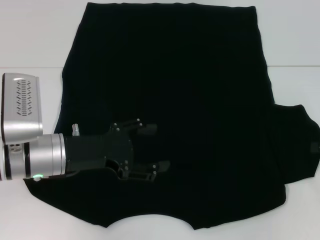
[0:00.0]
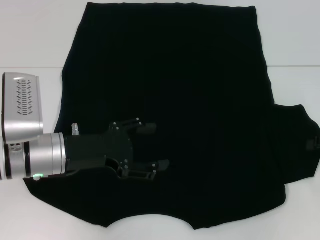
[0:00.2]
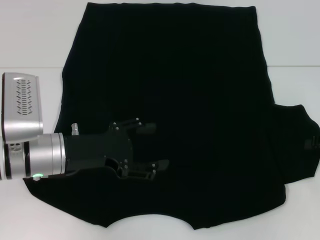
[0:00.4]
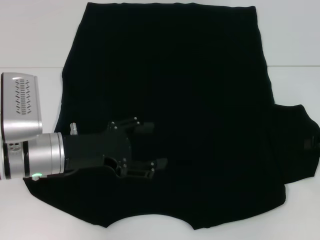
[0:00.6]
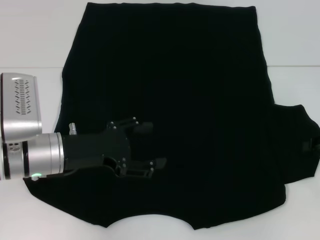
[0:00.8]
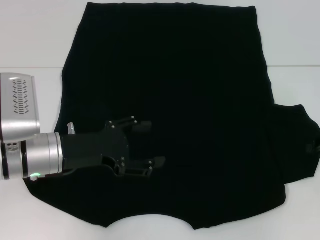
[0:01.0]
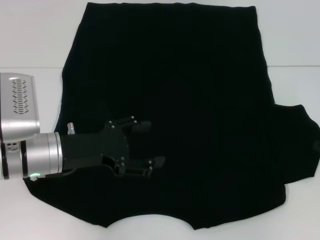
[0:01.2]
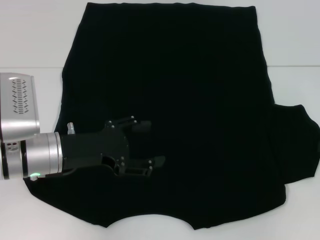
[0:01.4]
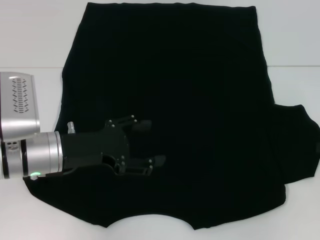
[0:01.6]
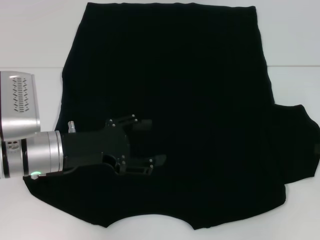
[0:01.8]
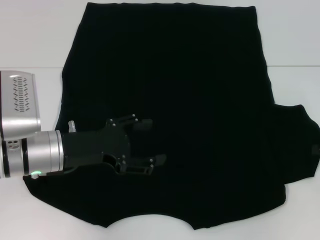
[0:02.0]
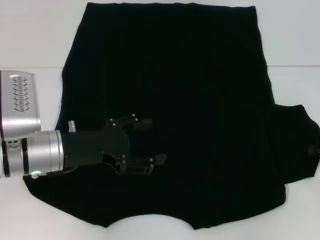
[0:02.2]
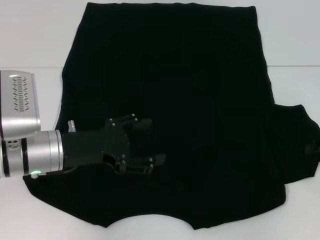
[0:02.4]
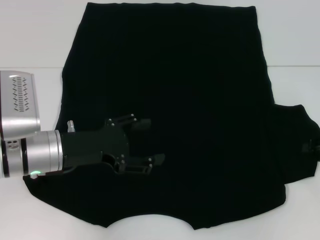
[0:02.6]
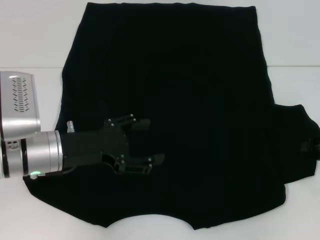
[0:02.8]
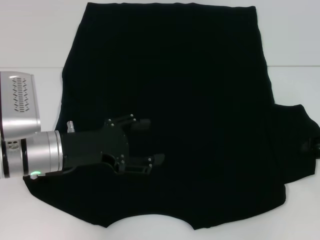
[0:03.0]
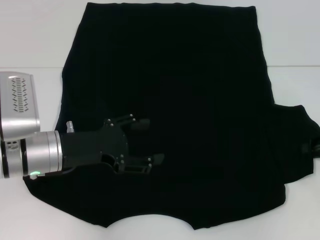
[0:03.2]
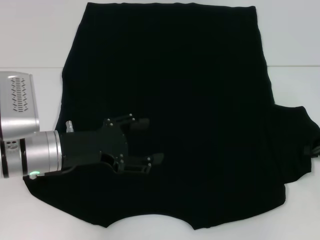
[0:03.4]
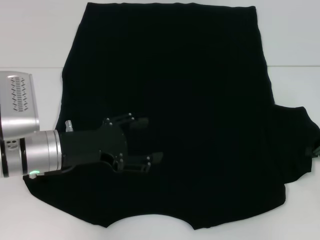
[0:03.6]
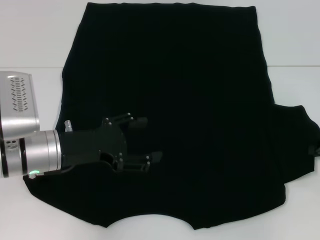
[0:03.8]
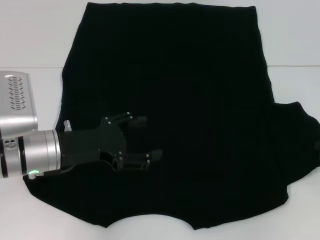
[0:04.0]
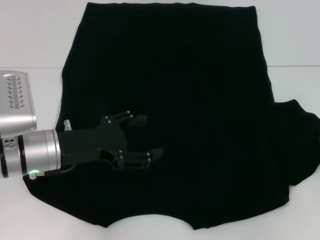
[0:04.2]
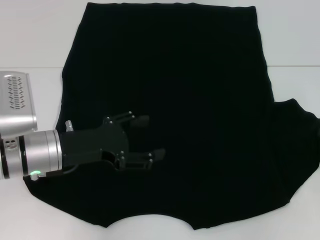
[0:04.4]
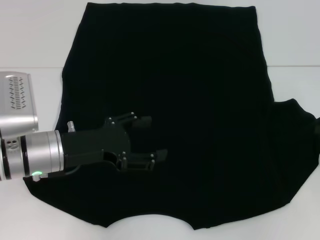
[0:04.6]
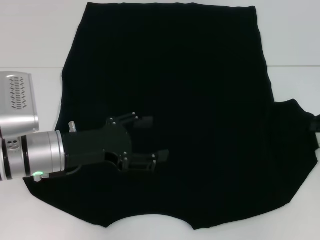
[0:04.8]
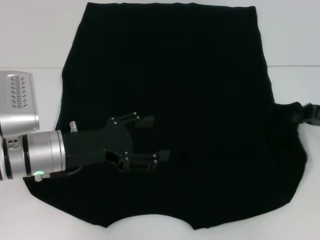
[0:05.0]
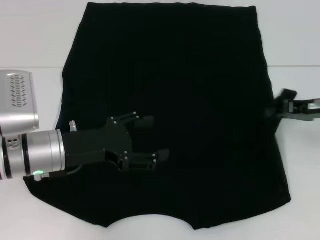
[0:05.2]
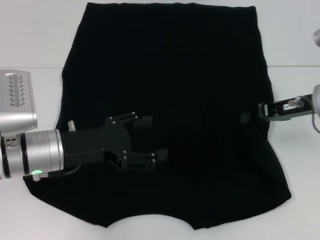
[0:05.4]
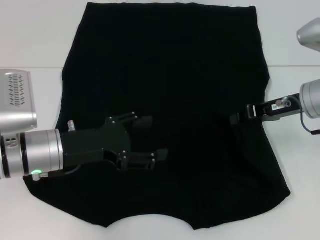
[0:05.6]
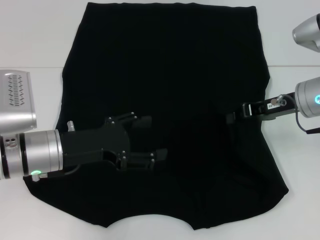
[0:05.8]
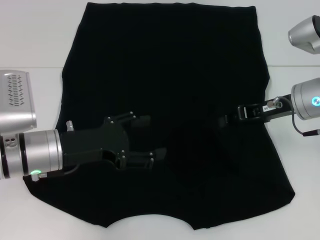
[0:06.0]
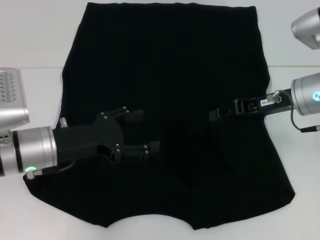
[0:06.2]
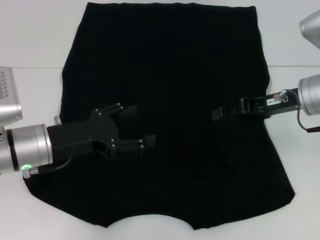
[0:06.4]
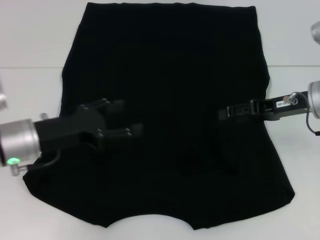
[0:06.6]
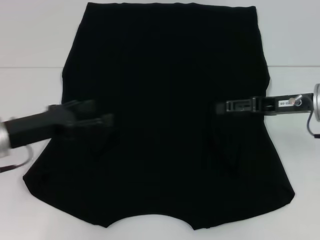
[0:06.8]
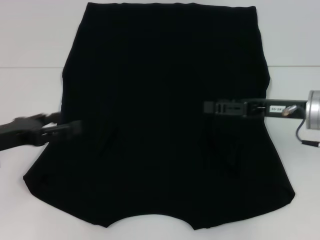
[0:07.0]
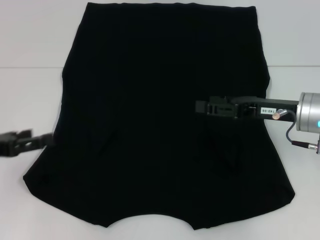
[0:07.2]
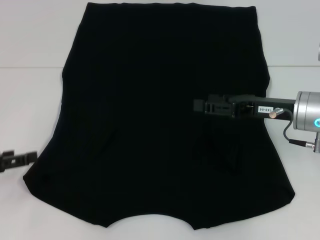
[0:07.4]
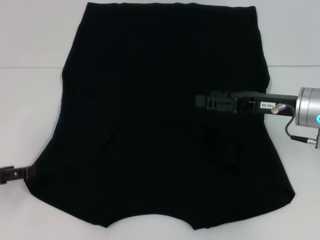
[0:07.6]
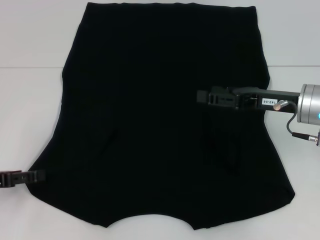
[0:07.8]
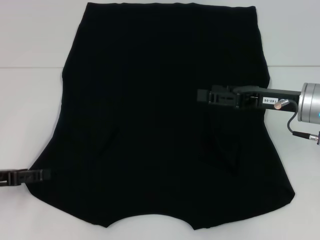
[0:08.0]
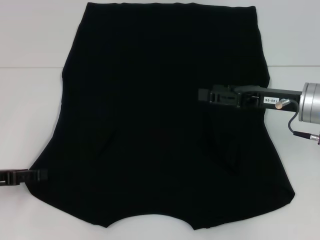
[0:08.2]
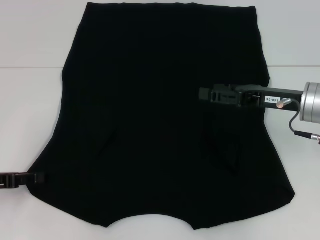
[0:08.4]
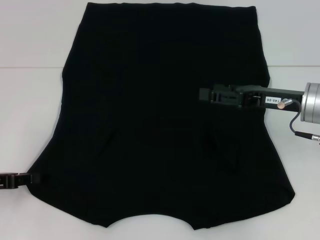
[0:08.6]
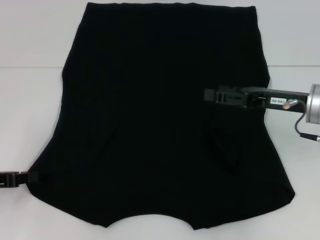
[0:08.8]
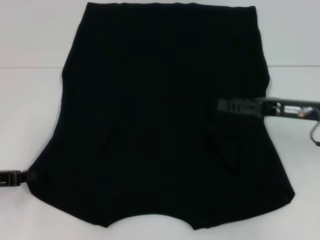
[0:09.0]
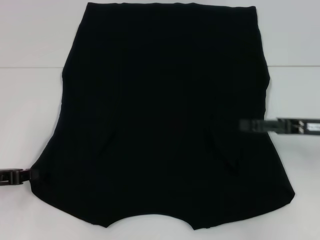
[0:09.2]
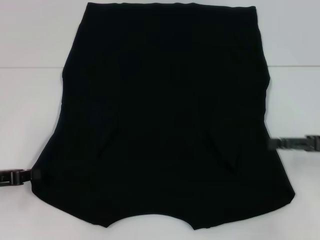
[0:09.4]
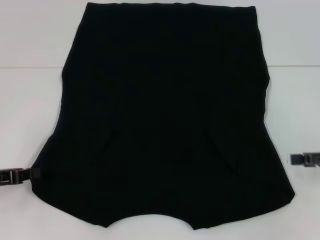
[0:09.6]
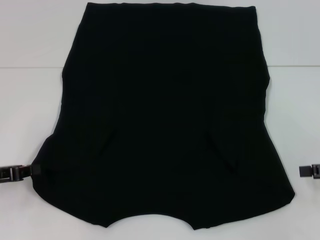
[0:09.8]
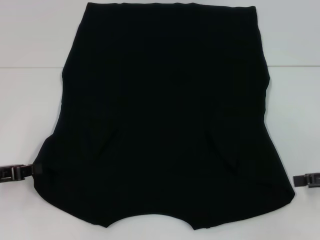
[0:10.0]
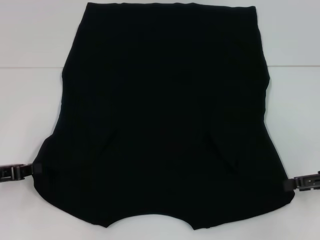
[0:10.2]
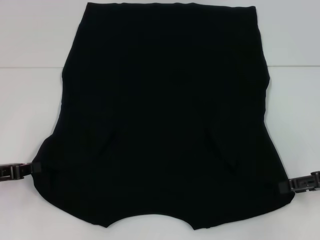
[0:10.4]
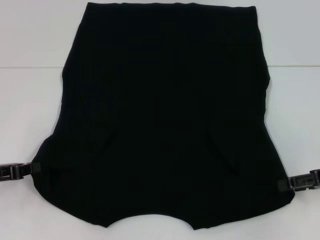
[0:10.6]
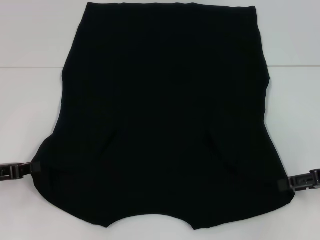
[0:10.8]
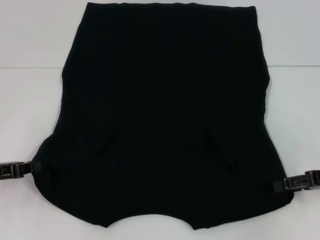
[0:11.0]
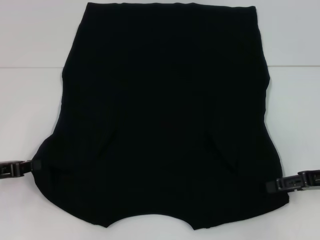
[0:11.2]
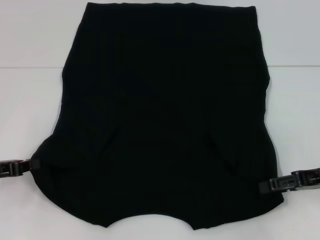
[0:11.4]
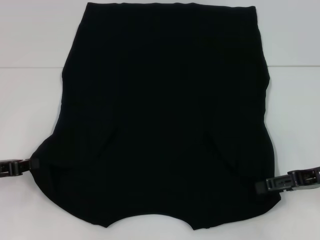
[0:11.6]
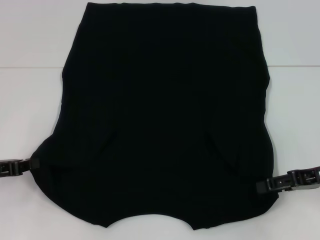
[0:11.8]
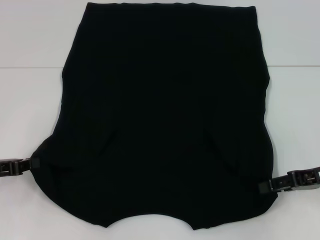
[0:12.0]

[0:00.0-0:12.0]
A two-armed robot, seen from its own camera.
Step, 0:00.0 to 0:06.6: Fold the bottom right sleeve with your right hand.
0:03.0 to 0:04.4: The right gripper closes.
0:04.4 to 0:06.0: The right gripper is displaced to the left by roughly 15 cm.
0:06.0 to 0:07.6: The left gripper moves to the left, approximately 15 cm; the right gripper opens up.
0:07.6 to 0:09.0: The left gripper closes.
0:09.0 to 0:10.4: The right gripper heads to the right, covering roughly 10 cm.
0:10.4 to 0:12.0: There are only small adjustments of the grippers.

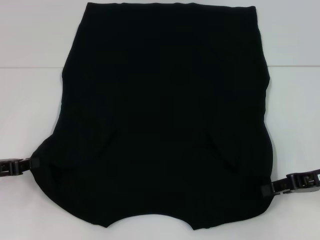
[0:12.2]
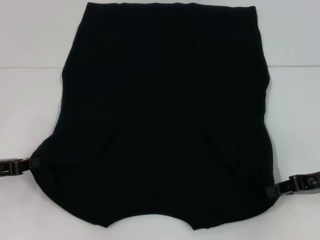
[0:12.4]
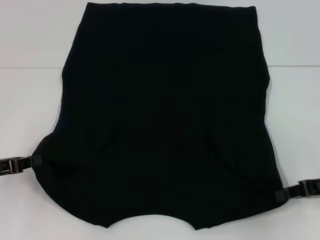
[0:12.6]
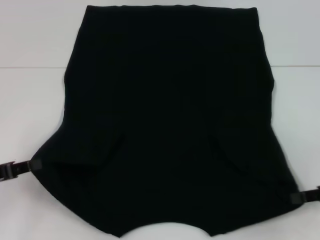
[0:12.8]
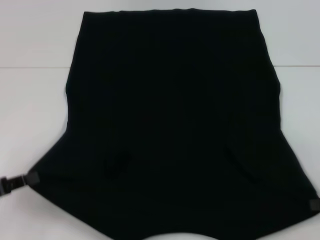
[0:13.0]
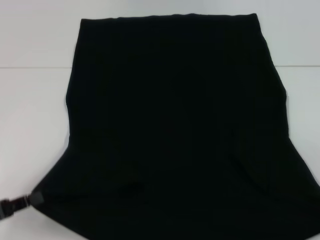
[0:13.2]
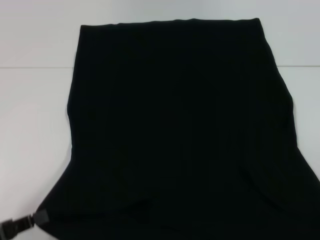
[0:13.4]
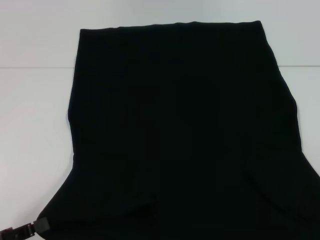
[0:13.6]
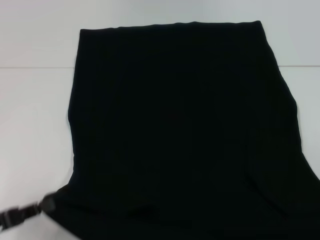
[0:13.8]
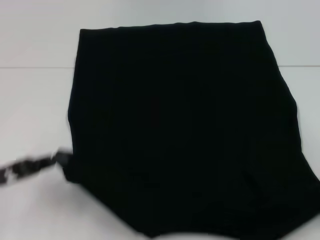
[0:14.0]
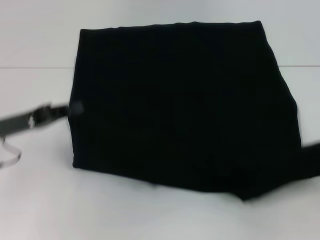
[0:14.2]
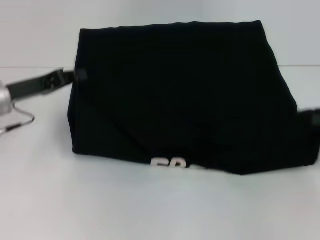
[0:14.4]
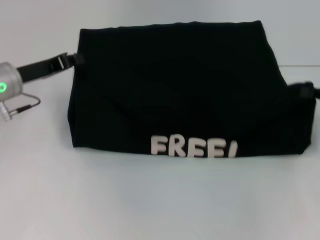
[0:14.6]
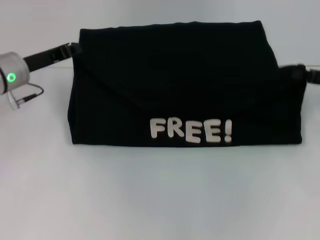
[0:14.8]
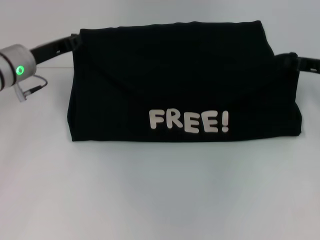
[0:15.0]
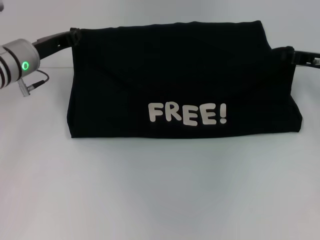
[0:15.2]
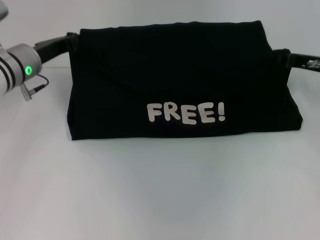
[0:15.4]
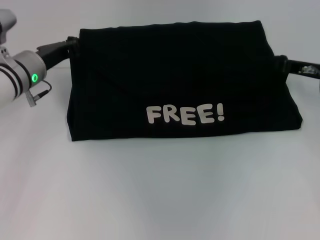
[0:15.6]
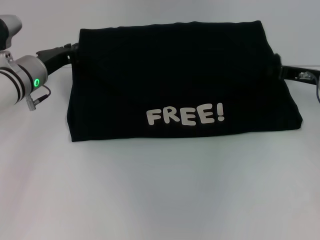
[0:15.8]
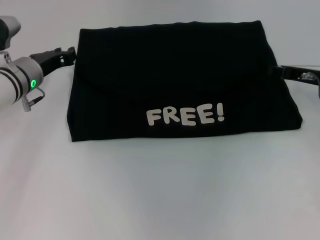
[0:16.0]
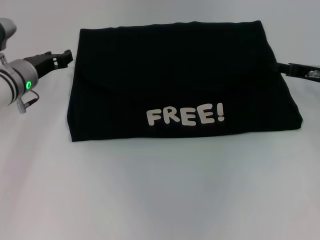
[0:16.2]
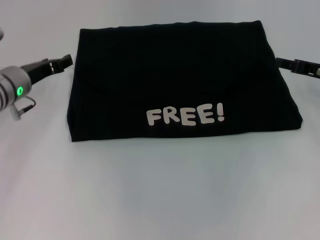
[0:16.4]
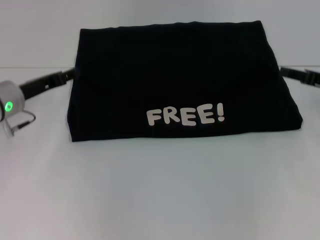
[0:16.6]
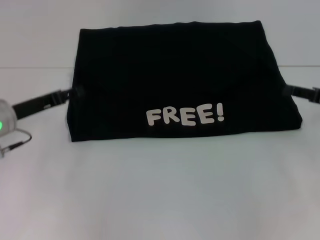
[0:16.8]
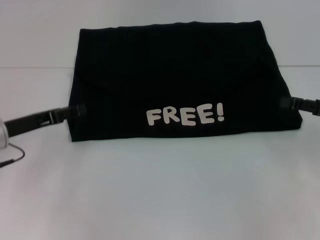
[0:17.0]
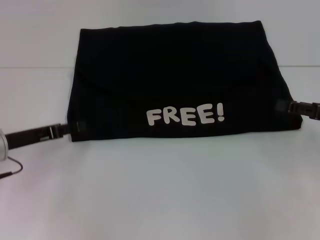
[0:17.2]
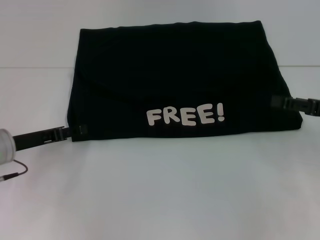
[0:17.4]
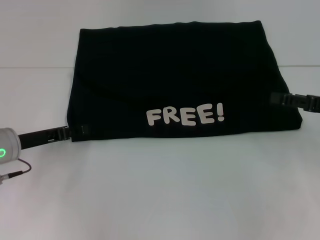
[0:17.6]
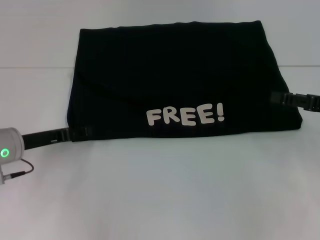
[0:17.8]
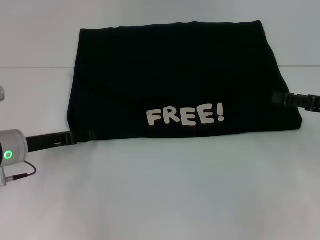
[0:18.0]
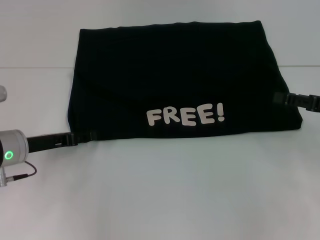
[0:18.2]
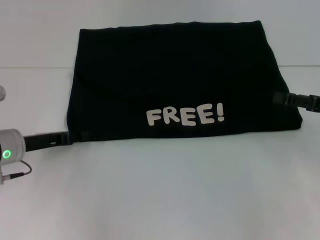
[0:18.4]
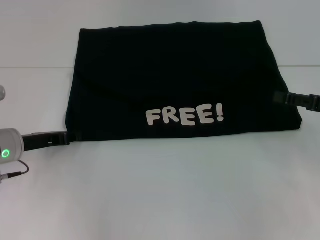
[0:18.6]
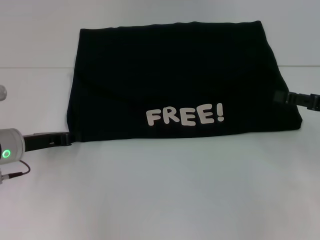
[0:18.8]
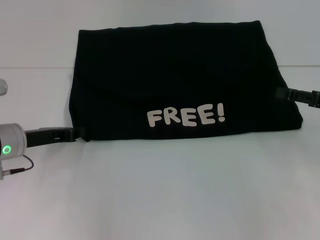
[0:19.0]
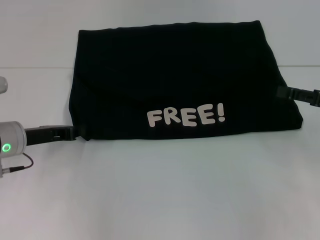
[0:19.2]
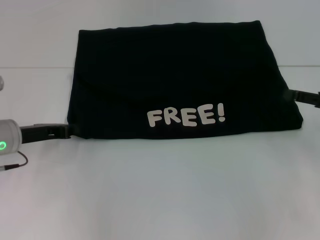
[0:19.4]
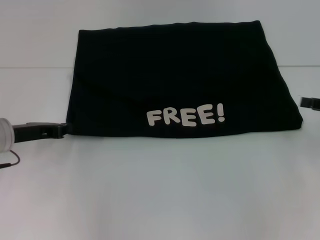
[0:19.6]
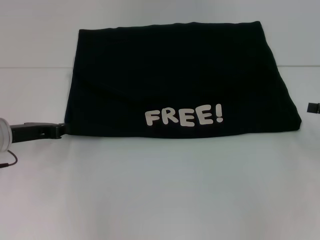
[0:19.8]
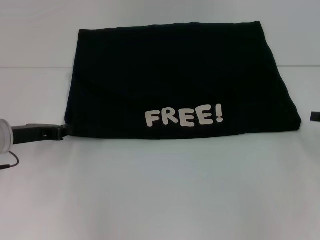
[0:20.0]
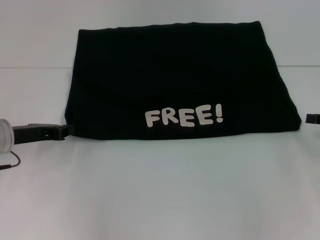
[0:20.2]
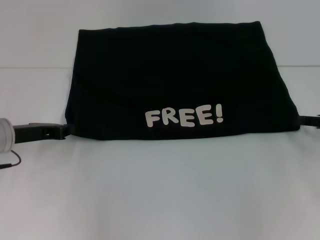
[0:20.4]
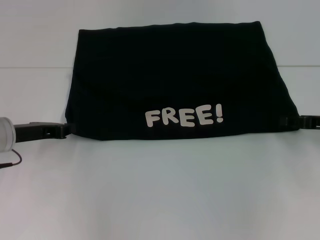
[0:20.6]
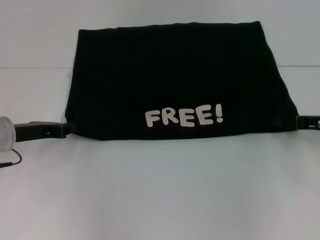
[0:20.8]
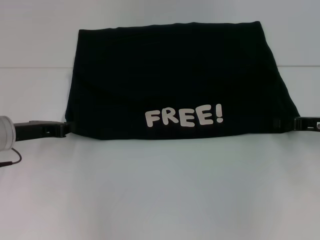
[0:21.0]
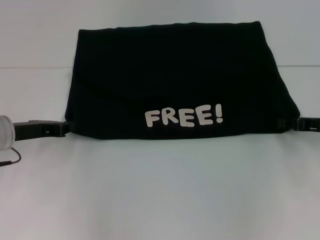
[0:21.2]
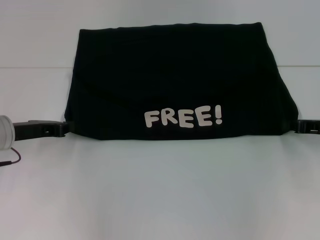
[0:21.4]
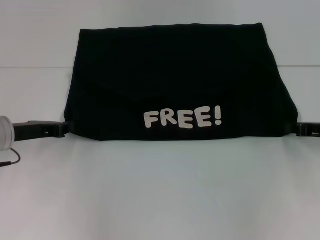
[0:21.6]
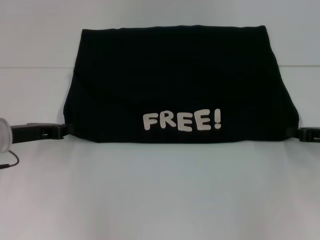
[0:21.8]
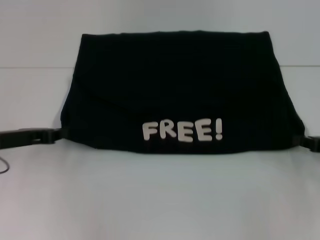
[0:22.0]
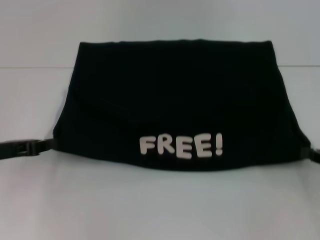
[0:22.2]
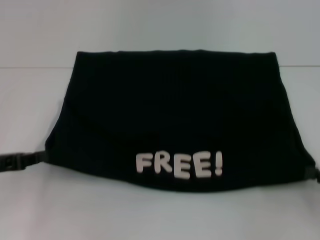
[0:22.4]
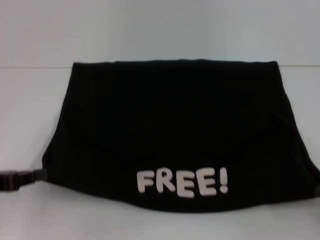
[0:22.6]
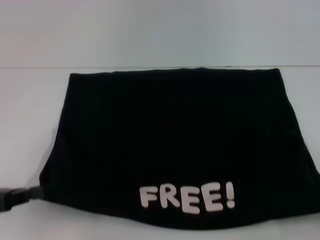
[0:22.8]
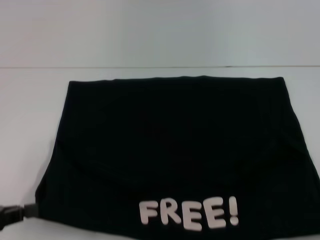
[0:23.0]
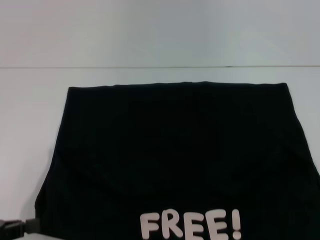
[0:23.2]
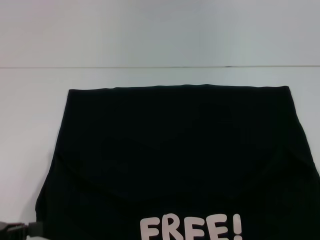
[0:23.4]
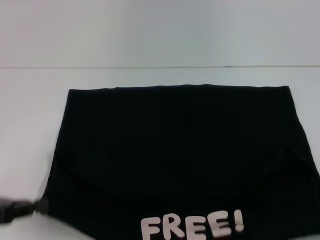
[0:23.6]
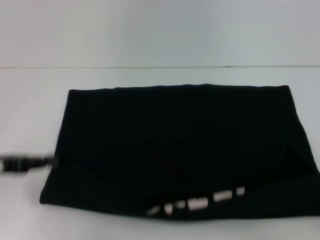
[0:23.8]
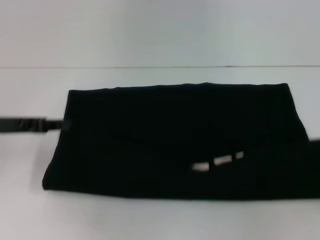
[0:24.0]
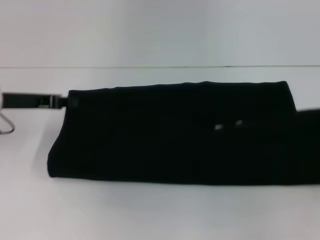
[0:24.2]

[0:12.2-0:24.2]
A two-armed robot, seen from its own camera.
Step, 0:13.0 to 0:16.6: Fold the clothes with your left hand.
Step, 0:13.0 to 0:16.6: Fold the clothes with your right hand.
Step, 0:16.8 to 0:23.0: Pull the clothes with your left hand.
Step, 0:16.8 to 0:23.0: Pull the clothes with your right hand.
0:12.2 to 0:13.8: The left gripper heads backward, covering approximately 10 cm. The right gripper heads to the right and backward, covering approximately 15 cm, and closes up.
0:13.8 to 0:15.2: The right gripper goes some 25 cm forward and to the left. The left gripper shifts approximately 25 cm forward.
0:15.2 to 0:16.6: The right gripper moves about 5 cm, and opens up. Meanwhile the left gripper ends up some 5 cm from where it was, and opens its fingers.
0:16.6 to 0:18.2: The left gripper shifts about 5 cm backward.
0:18.2 to 0:19.8: The left gripper closes.
0:19.8 to 0:21.2: The right gripper moves to the left, roughly 5 cm.
0:21.2 to 0:22.6: The right gripper travels backward and to the right by approximately 15 cm, and closes up. The left gripper heads backward and to the left, covering about 10 cm.
0:22.6 to 0:24.2: The left gripper goes about 15 cm forward. The right gripper moves forward and upward, approximately 10 cm.
